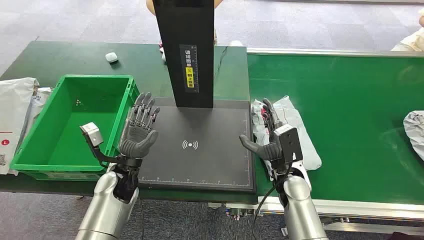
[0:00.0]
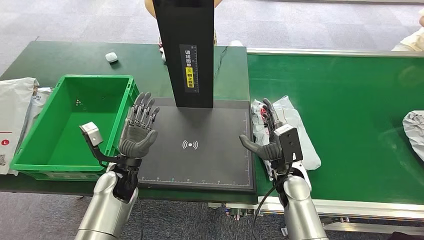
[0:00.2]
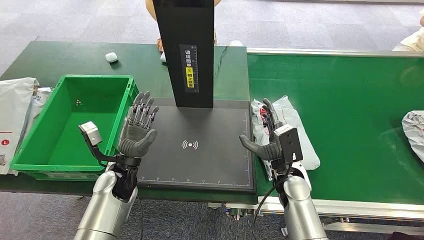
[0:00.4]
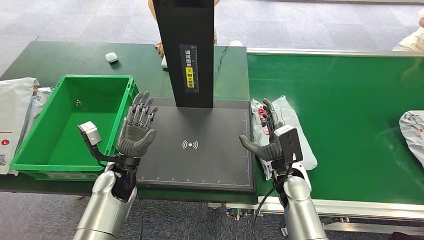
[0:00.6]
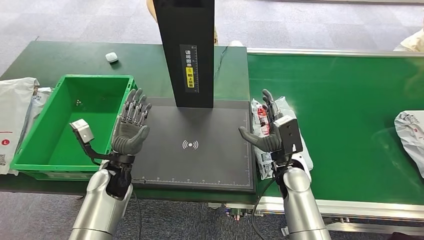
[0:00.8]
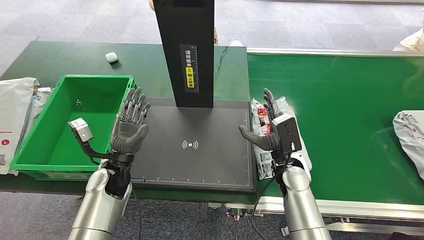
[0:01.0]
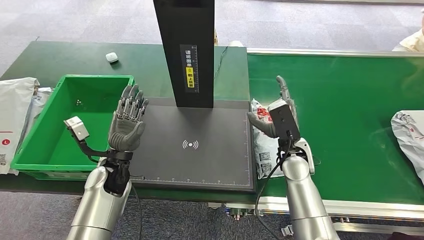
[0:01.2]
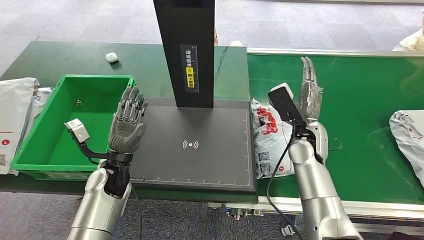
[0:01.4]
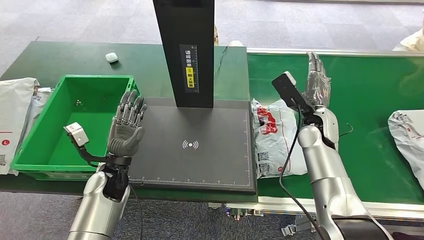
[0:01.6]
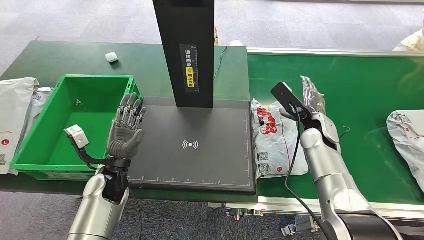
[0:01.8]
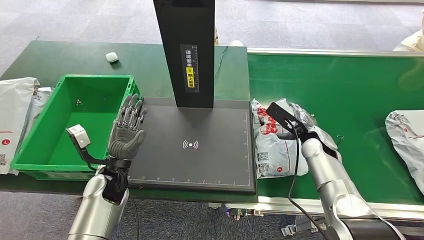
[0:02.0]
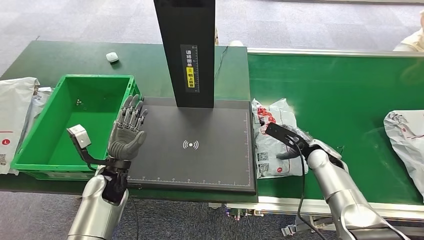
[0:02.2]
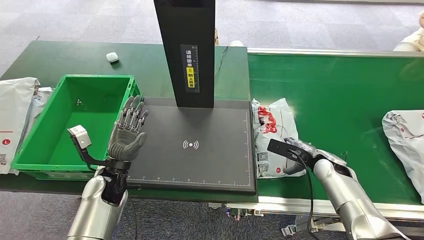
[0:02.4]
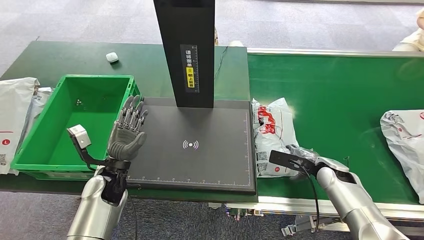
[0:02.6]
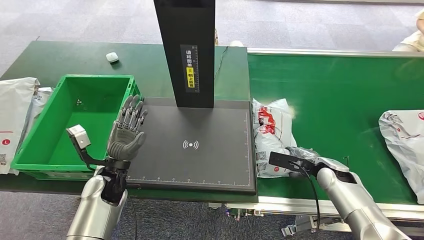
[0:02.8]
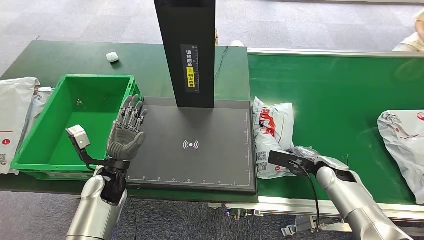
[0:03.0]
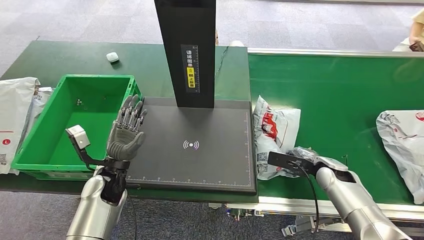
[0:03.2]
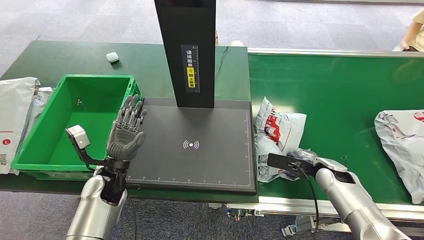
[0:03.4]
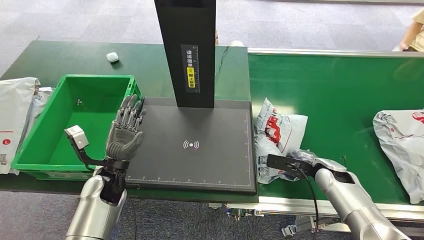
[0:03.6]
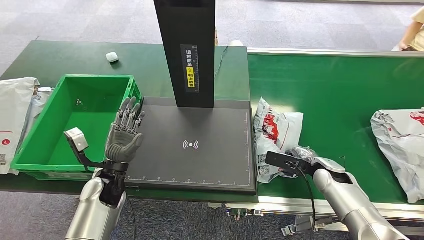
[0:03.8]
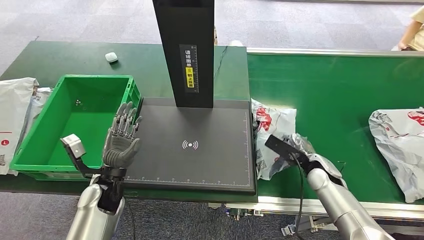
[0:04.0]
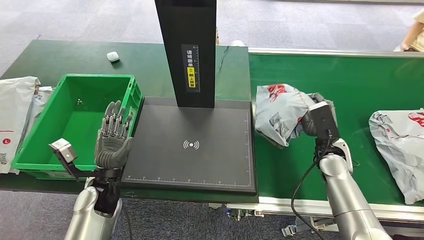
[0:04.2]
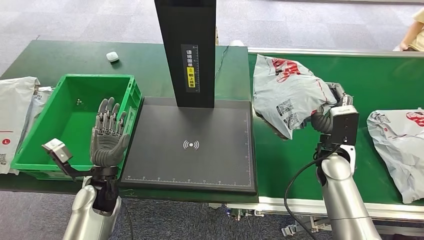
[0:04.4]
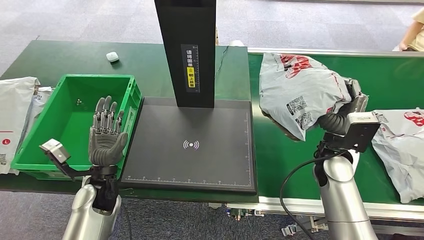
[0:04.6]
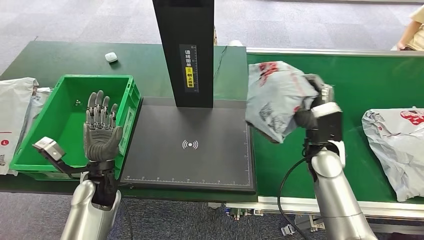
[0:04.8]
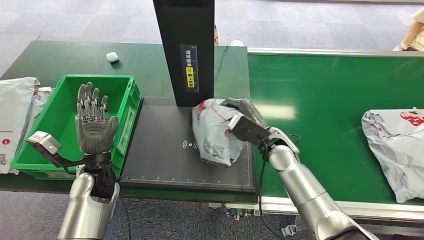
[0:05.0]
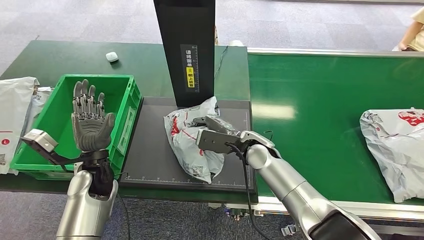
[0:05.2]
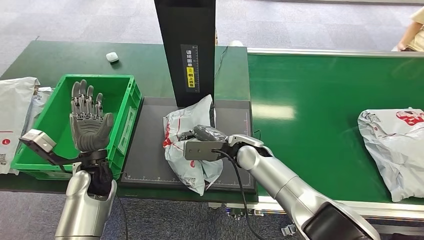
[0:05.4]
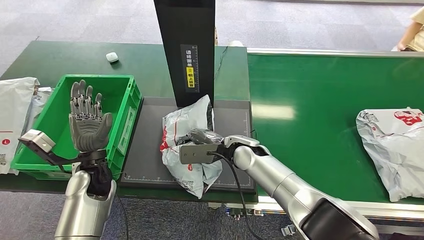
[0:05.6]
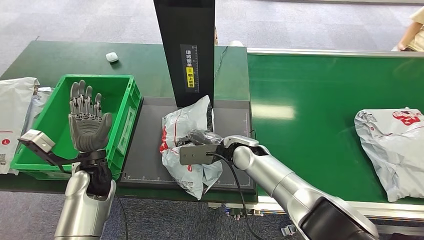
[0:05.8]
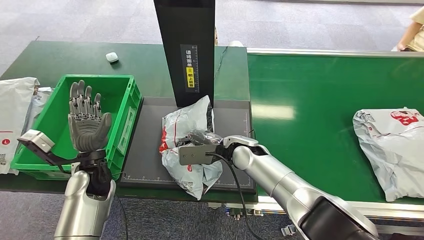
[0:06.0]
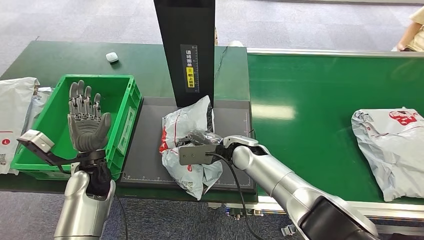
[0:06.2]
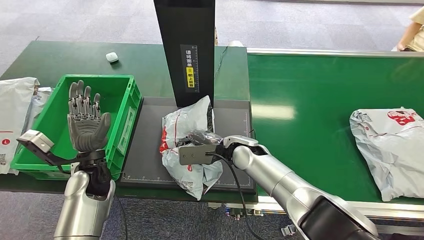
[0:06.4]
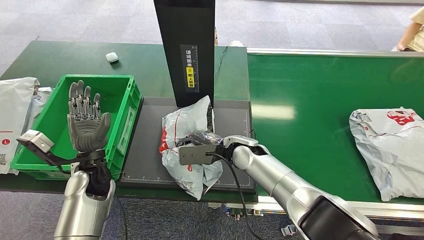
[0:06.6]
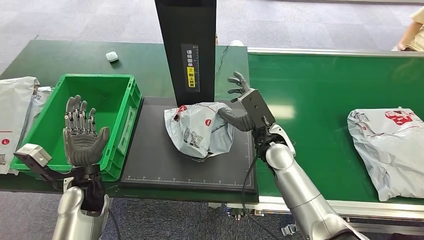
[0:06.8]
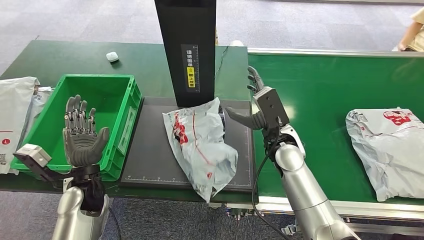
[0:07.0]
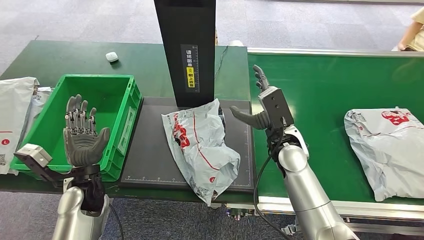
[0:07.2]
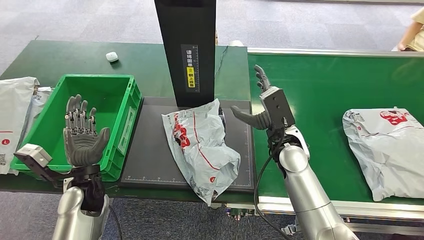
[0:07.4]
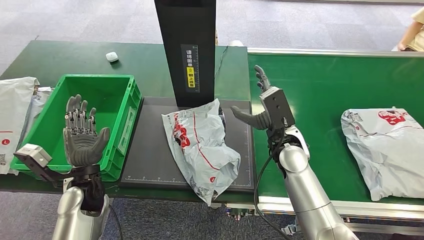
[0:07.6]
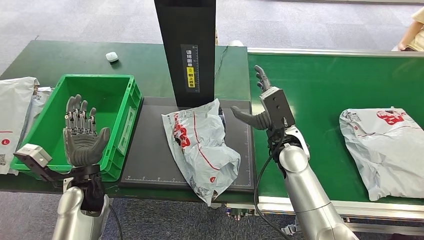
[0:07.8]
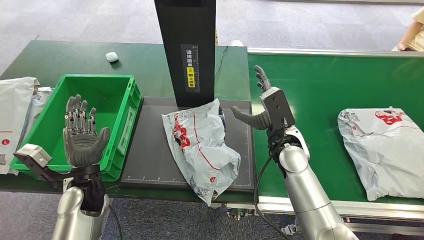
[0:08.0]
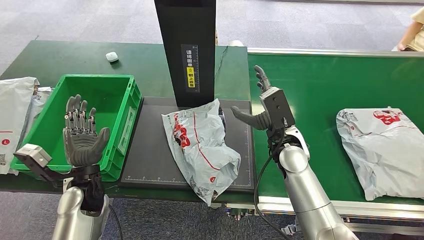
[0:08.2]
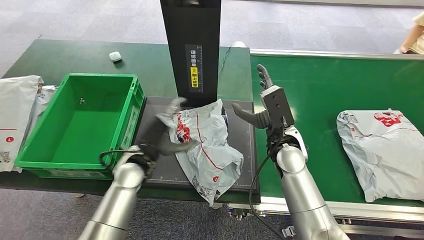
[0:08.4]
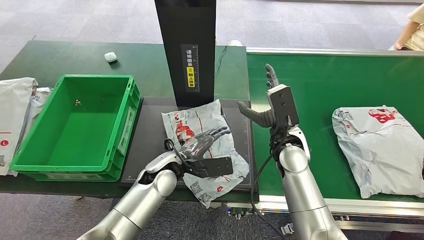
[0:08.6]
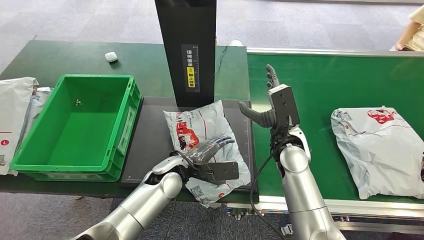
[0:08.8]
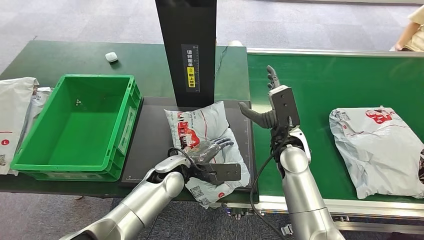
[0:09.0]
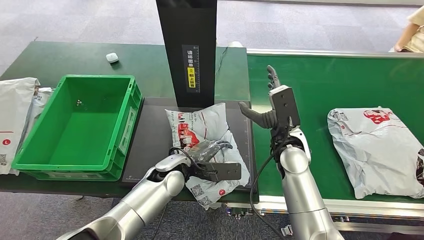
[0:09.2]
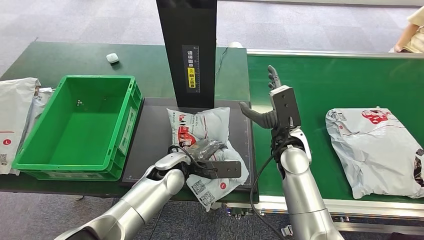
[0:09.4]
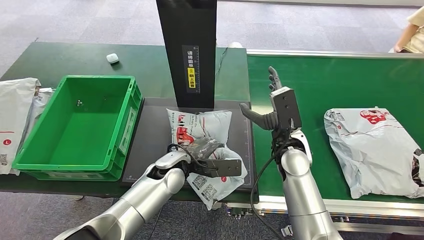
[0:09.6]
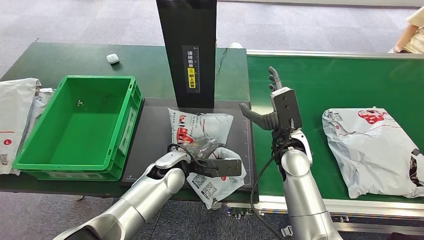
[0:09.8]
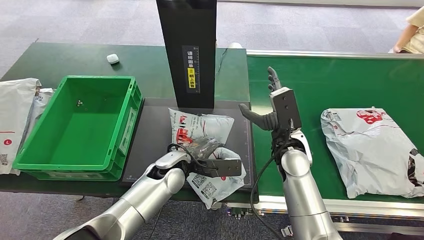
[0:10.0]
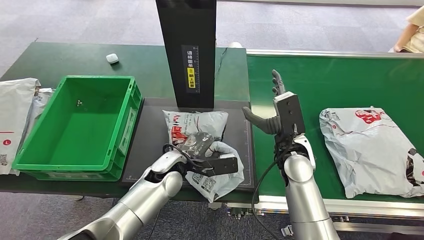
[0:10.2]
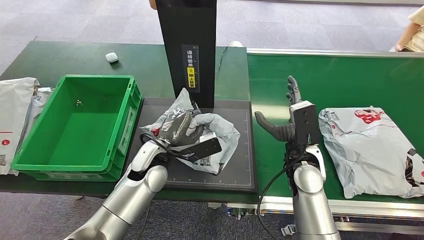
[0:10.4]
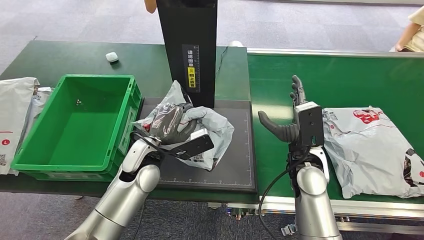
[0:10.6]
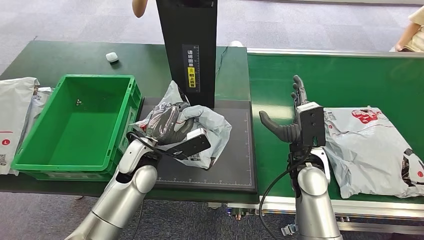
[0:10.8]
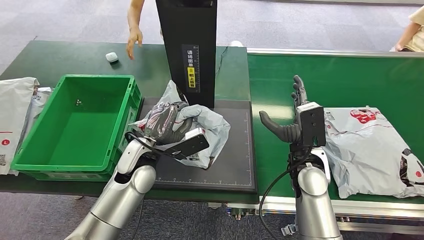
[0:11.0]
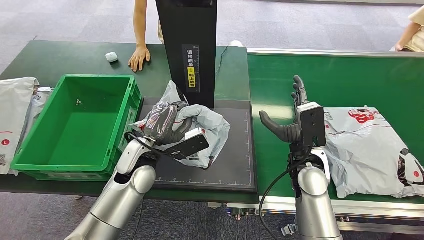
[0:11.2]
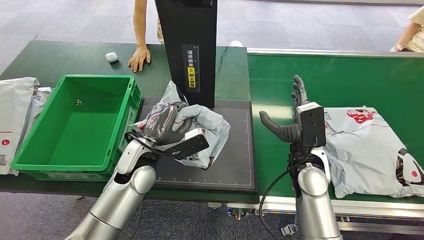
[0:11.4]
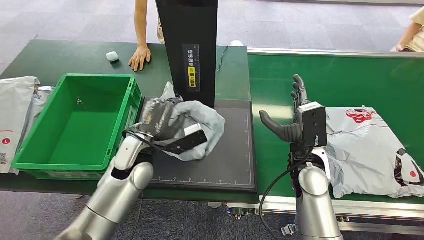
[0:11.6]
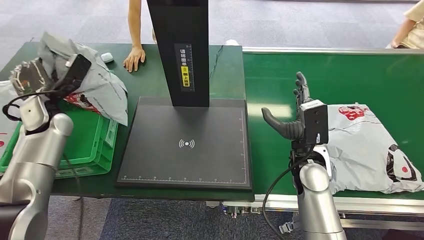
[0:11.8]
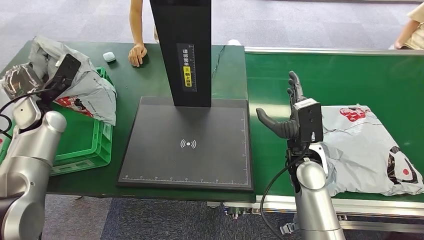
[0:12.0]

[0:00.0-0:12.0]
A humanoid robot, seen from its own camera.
Task of the whole recording: Weigh the package on the weighing device and place it in the left basket.
Step, 0:00.0 to 0:04.4: Pick up the package from the conveyor belt.
Step, 0:04.6 to 0:08.2: Place the package onto the inbound machine.
Step, 0:08.4 to 0:11.6: Pick up the package from the inbound machine.
0:01.6 to 0:03.0: The right hand shifts roughly 20 cm downward, to the right and backward.

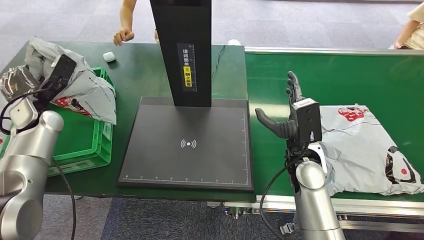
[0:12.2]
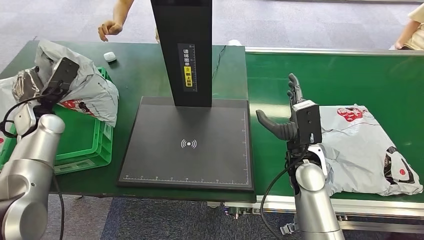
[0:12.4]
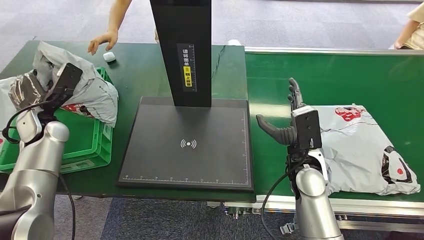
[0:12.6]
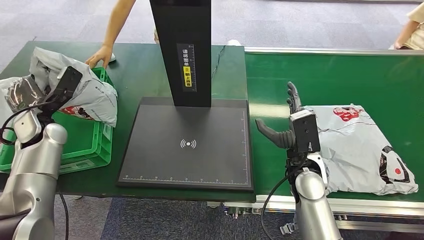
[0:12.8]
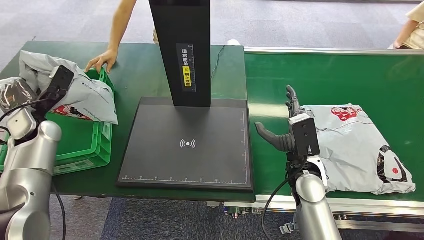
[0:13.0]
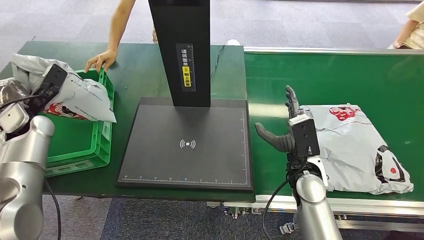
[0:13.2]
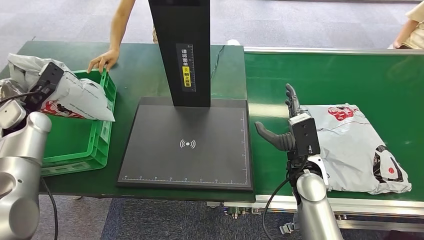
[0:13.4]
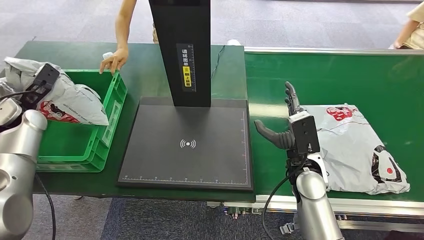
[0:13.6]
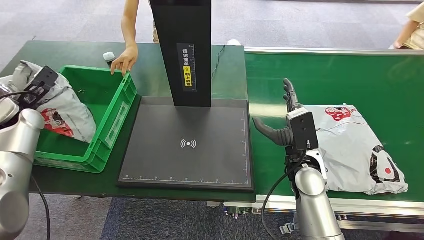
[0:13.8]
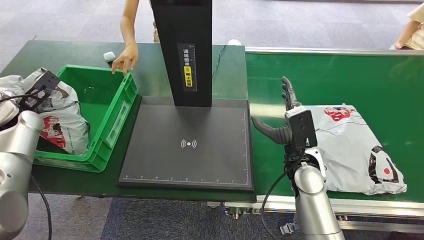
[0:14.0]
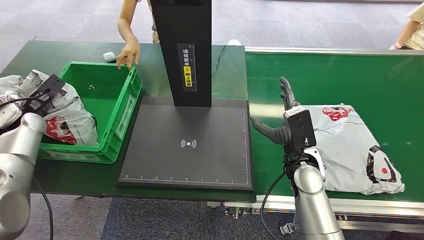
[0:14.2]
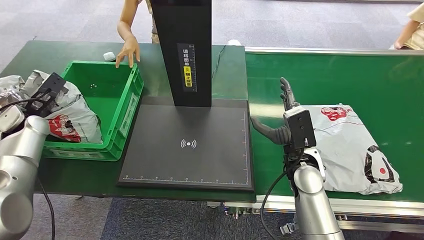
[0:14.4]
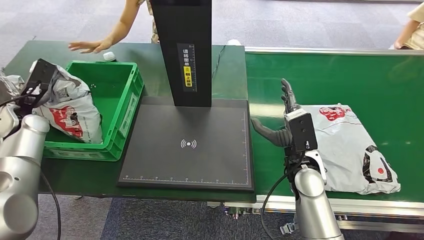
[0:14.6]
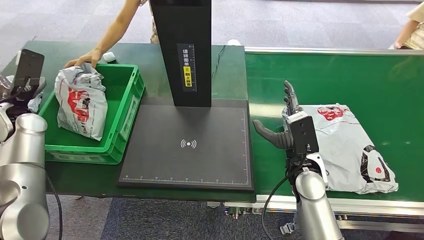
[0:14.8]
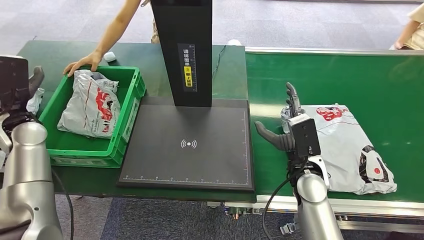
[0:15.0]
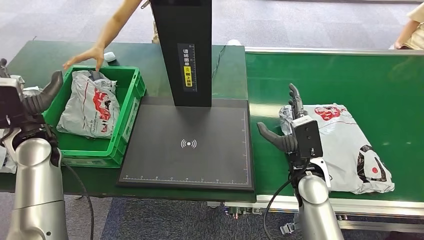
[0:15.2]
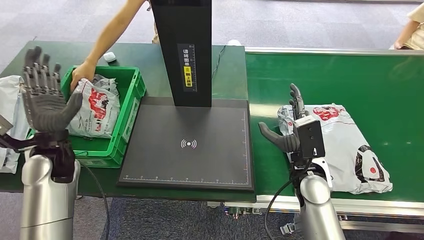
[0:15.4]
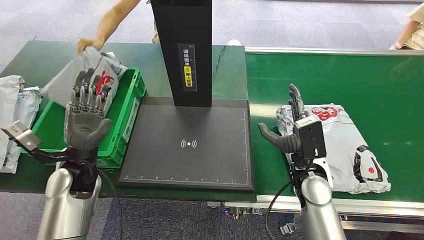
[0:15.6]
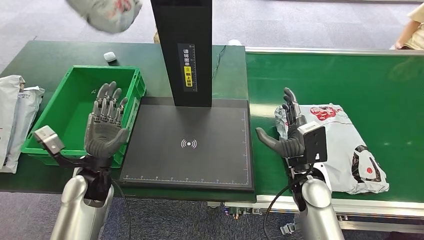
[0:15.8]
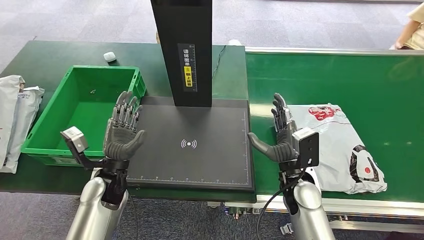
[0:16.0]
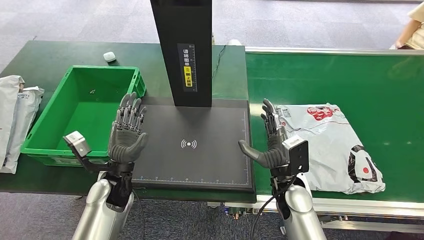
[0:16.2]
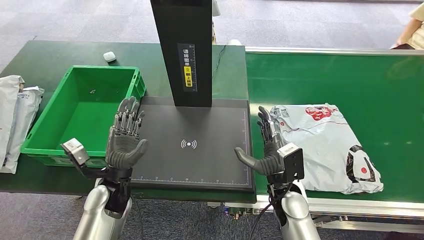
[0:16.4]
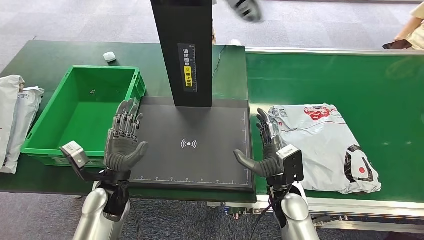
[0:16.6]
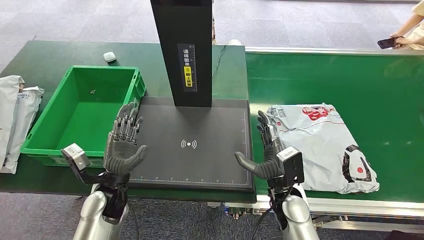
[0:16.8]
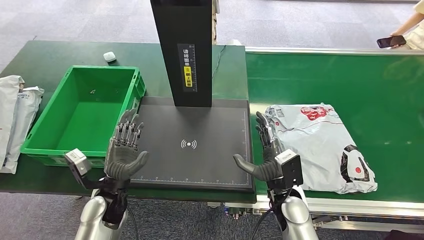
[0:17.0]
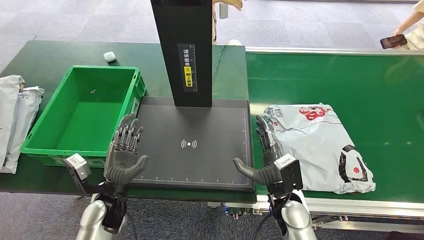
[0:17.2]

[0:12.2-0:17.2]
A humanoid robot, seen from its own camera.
Task of the whole recording: Weigh the package on the weighing device and place it in the left basket.
Step, 0:12.2 to 0:17.2: Place the package into the parcel locker.
